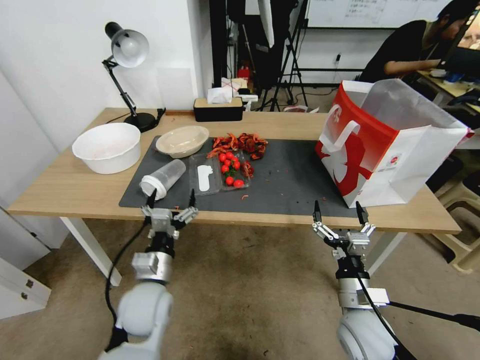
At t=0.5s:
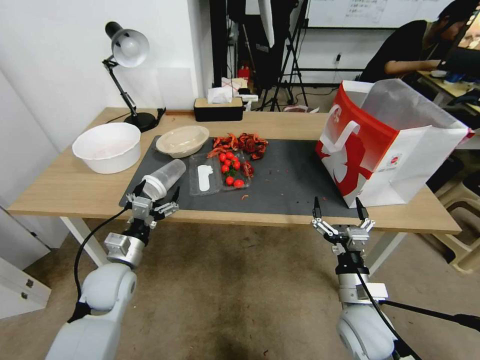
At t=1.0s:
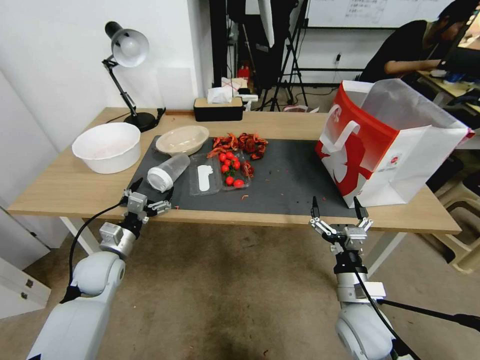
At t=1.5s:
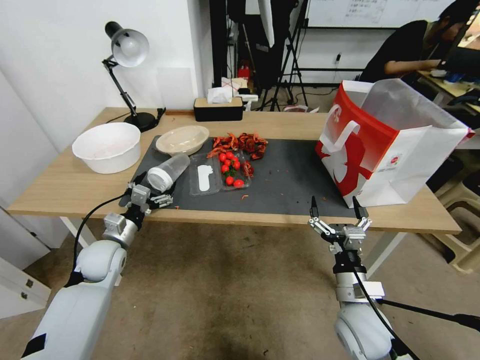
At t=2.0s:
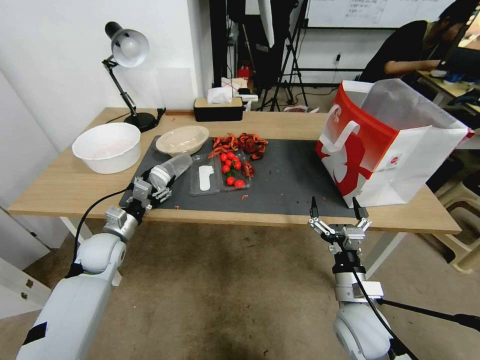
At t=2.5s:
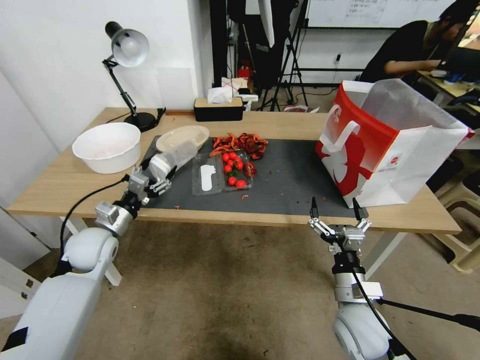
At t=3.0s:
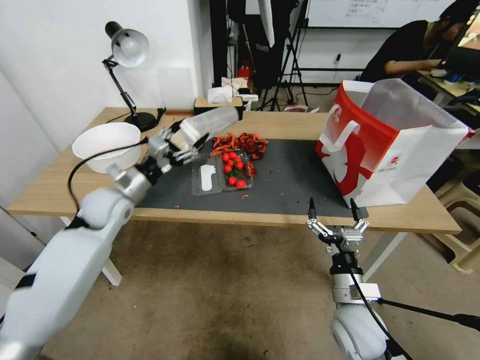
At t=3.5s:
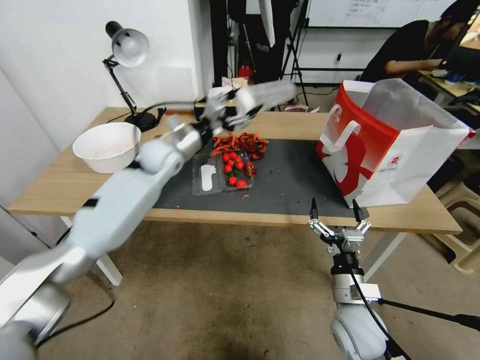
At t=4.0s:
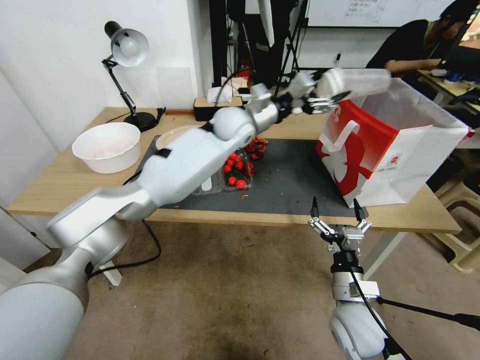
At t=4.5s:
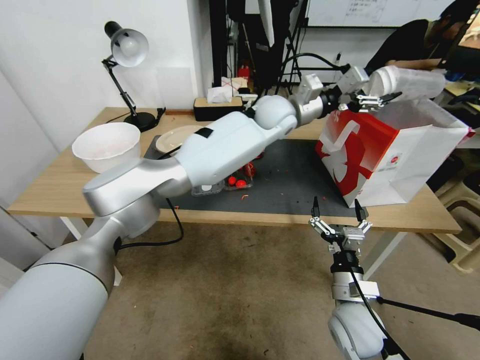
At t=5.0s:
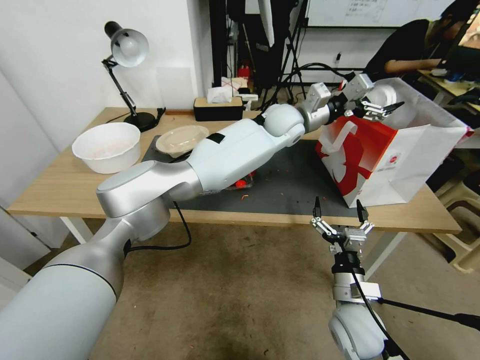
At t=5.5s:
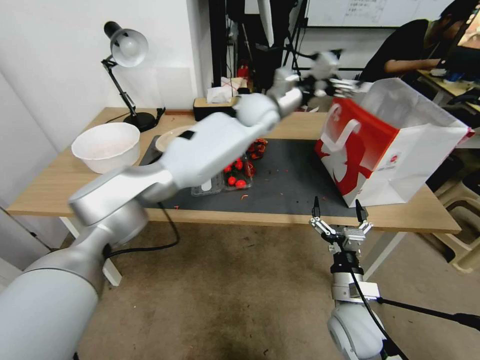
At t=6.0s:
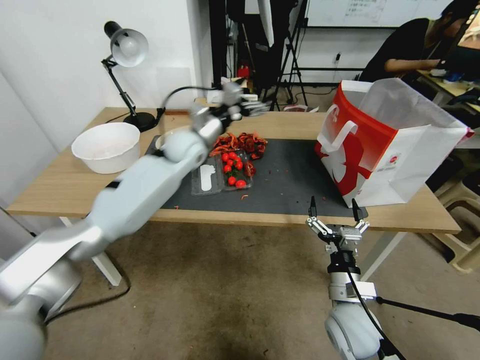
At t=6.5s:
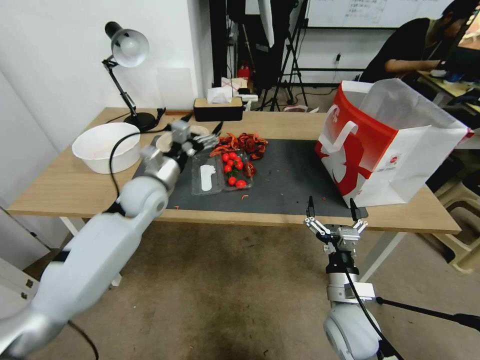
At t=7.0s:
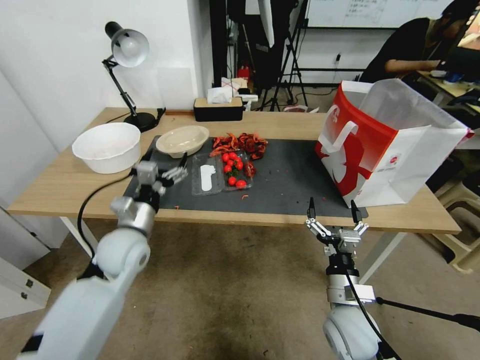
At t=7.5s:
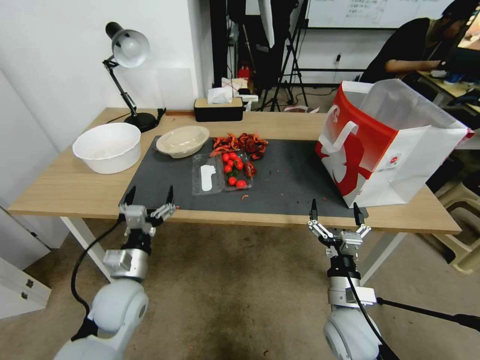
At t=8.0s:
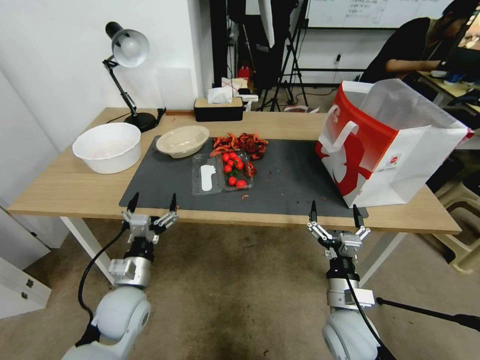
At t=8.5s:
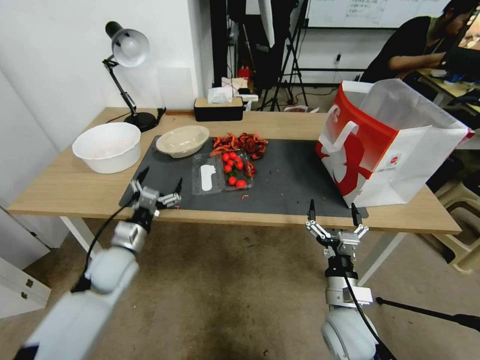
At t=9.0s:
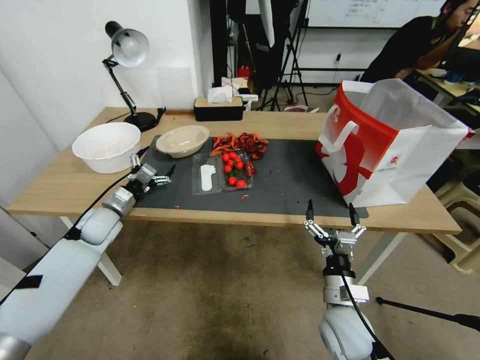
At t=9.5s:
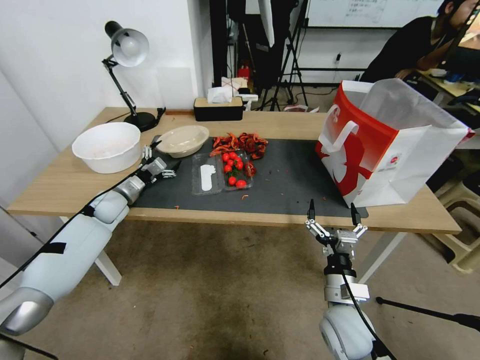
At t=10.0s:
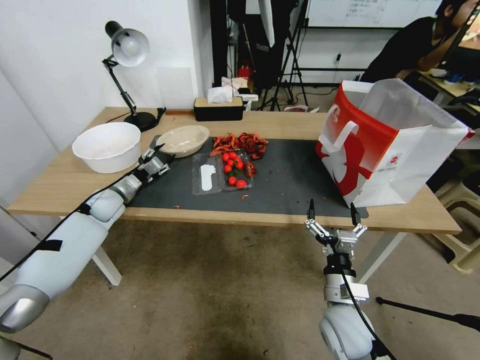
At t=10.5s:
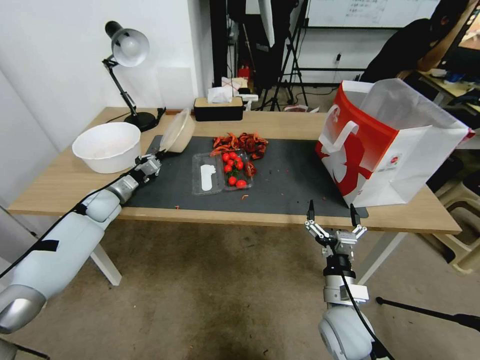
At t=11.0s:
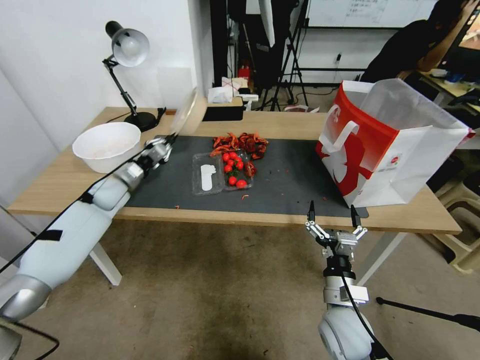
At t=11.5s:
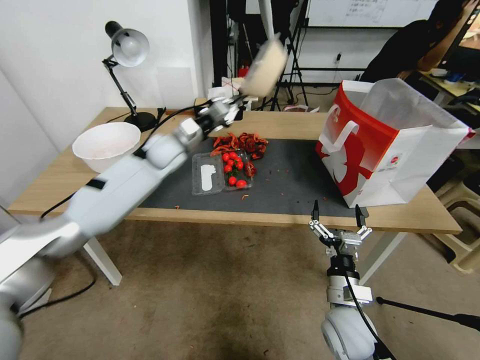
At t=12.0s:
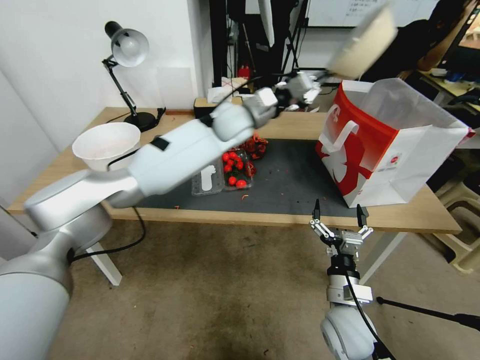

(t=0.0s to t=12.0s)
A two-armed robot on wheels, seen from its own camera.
t=0.0s - t=2.0s: The left gripper goes about 20 cm to the left and forward.
t=2.0s - t=4.0s: The left gripper moves to the right, upward and forward, about 40 cm.
t=4.0s - t=6.0s: The left gripper moves approximately 15 cm to the right and comes back.
t=6.0s - t=8.0s: The left gripper is displaced backward and downward by approximately 35 cm.
t=8.0s - t=10.0s: The left gripper heads forward and to the left, covering some 30 cm, and closes its fingers.
t=10.0s - t=12.0s: The left gripper travels to the right and upward by some 40 cm, and closes its fingers.

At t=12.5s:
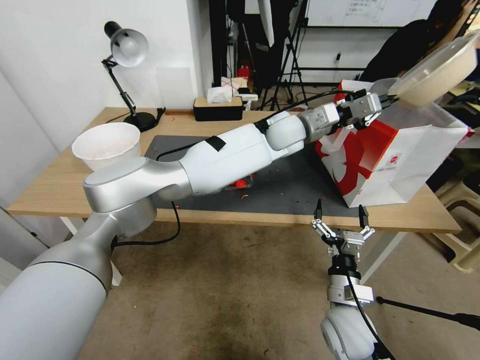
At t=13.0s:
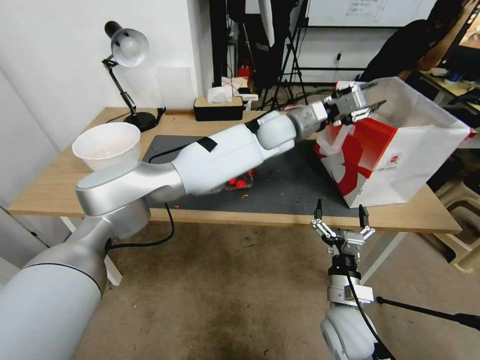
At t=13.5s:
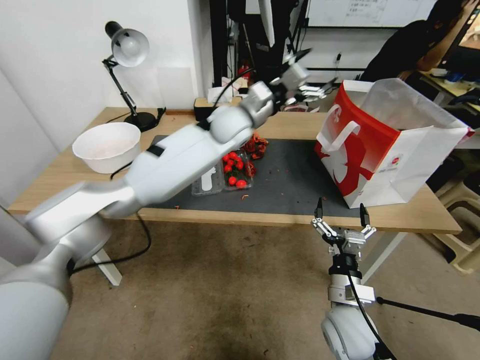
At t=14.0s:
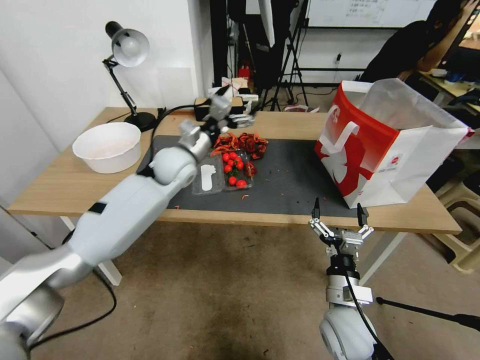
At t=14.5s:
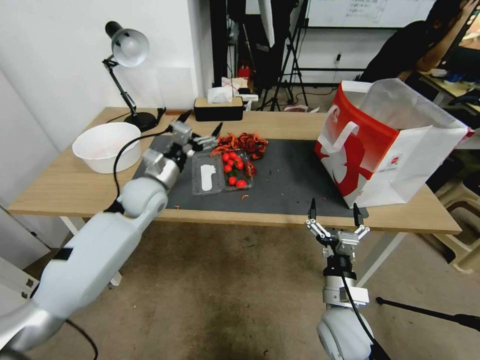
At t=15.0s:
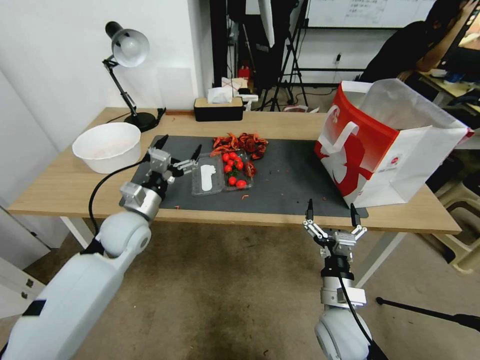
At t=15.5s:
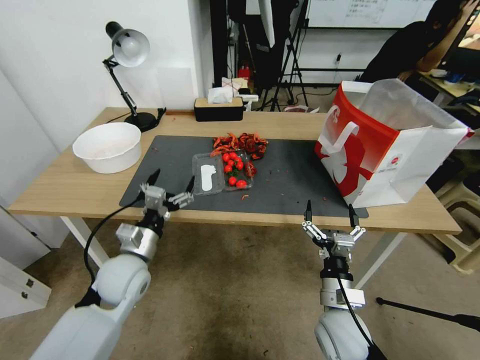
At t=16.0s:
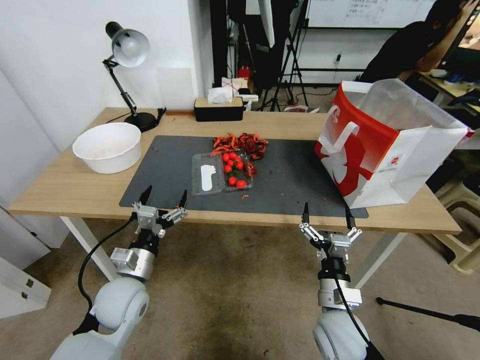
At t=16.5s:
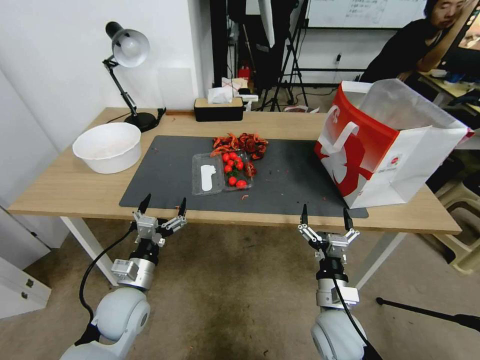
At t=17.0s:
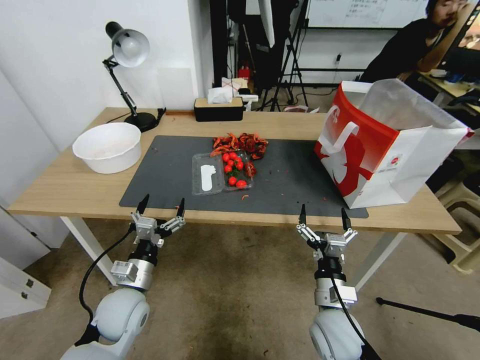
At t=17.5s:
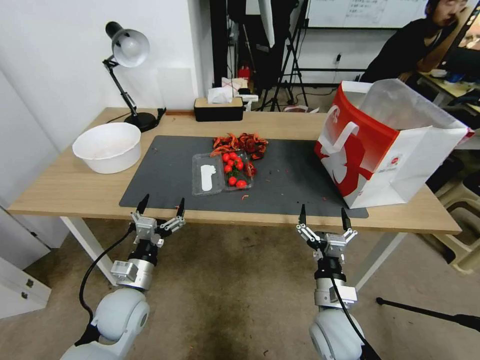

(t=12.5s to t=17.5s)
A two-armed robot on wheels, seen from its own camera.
t=12.5s - t=15.0s: The left gripper heads to the left, backward and downward, covering about 40 cm, and opens its fingers.
t=15.0s - t=17.5s: The left gripper travels backward and downward by about 15 cm.
